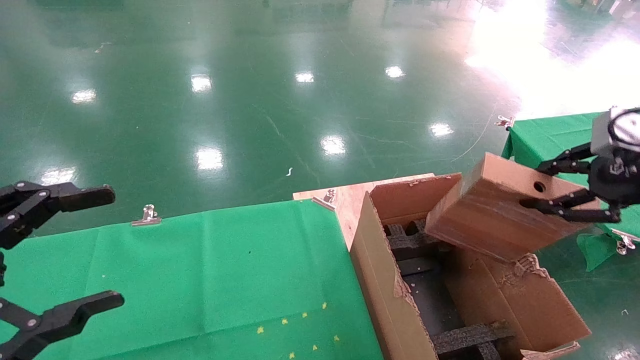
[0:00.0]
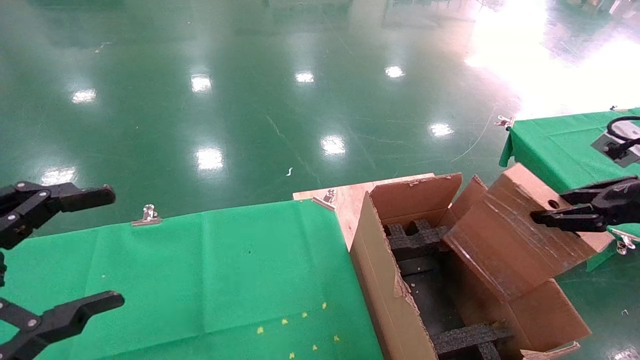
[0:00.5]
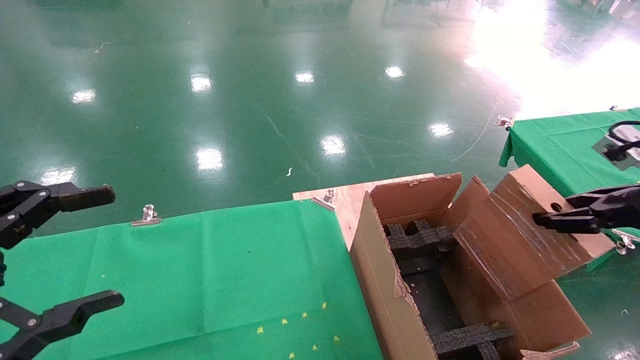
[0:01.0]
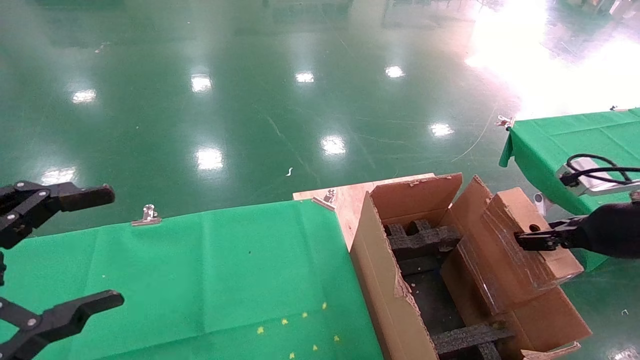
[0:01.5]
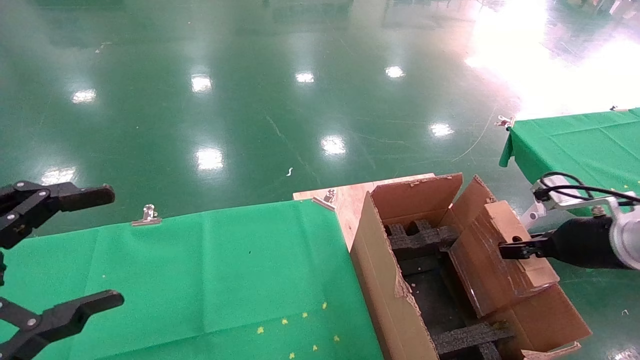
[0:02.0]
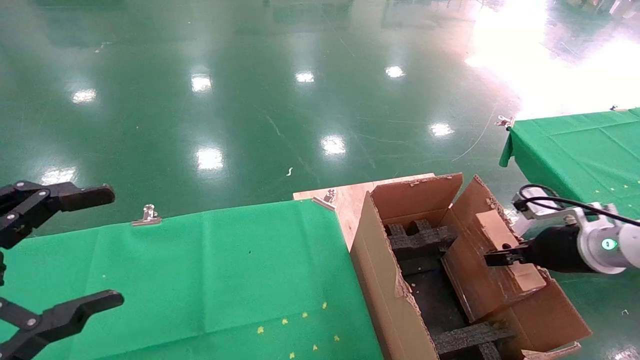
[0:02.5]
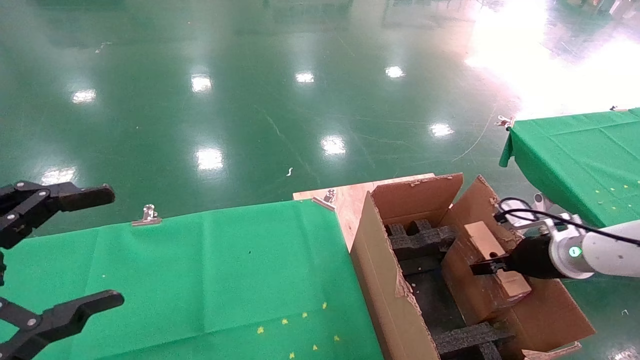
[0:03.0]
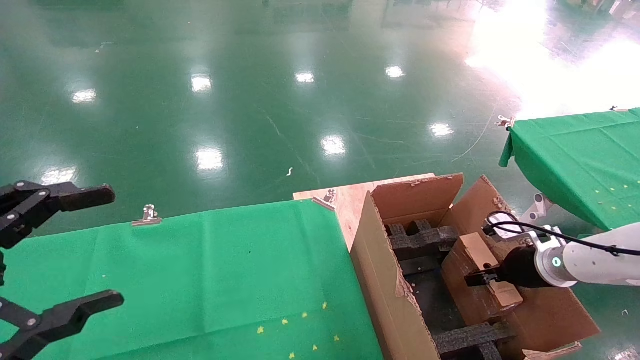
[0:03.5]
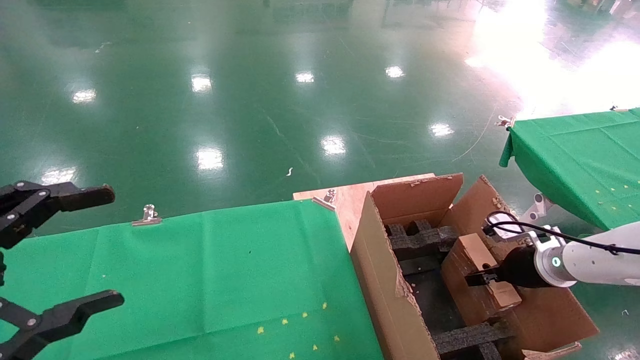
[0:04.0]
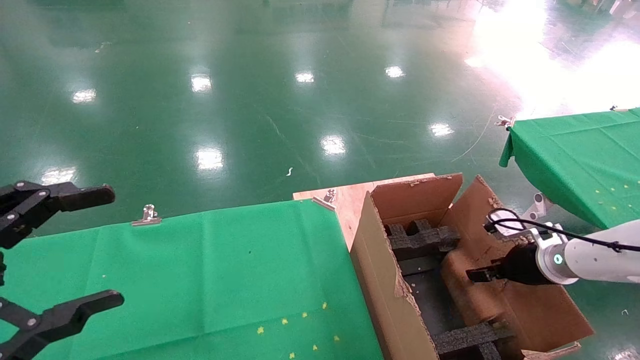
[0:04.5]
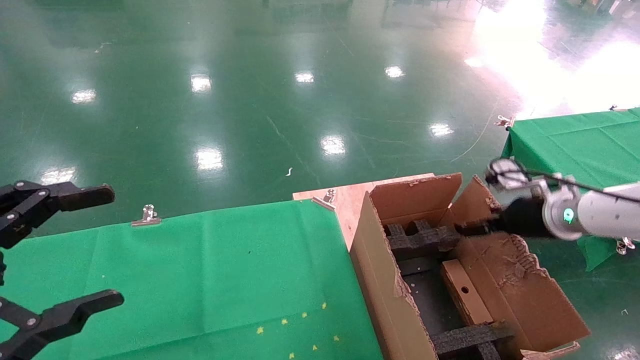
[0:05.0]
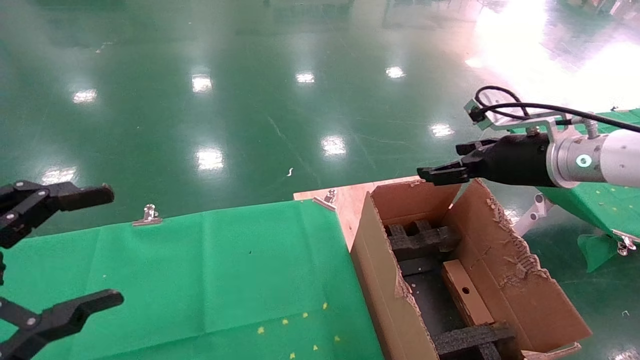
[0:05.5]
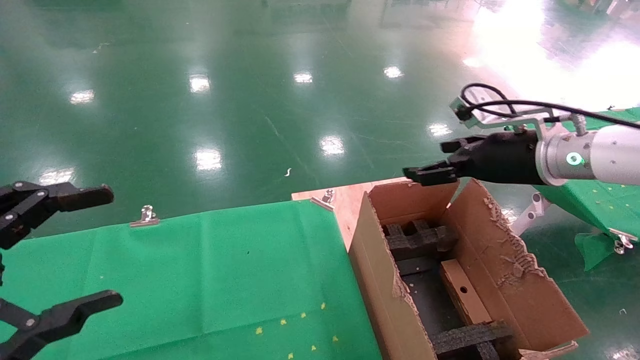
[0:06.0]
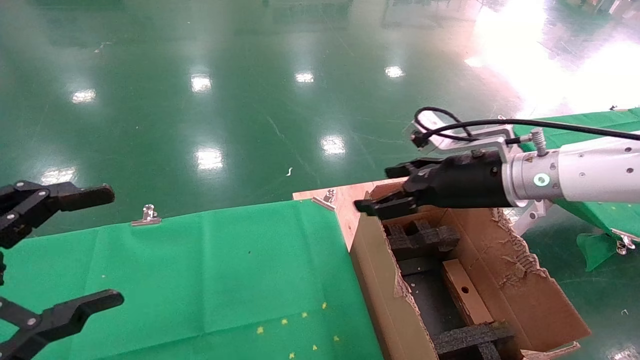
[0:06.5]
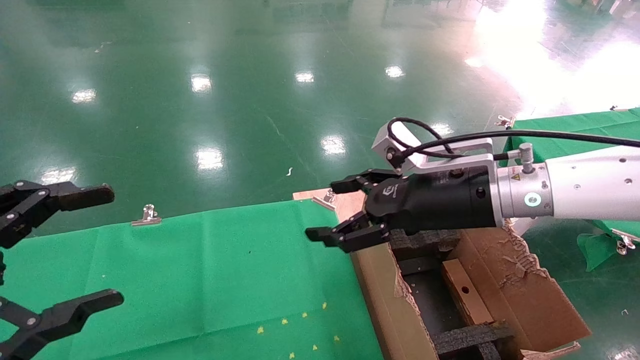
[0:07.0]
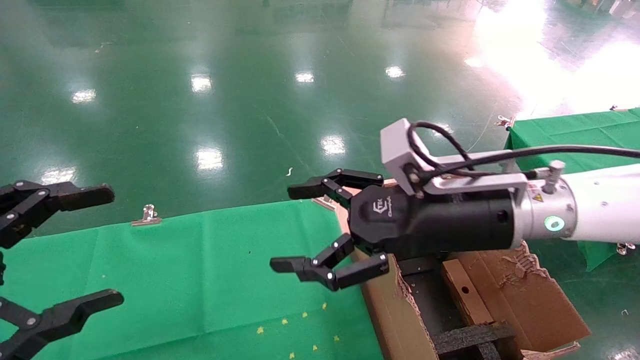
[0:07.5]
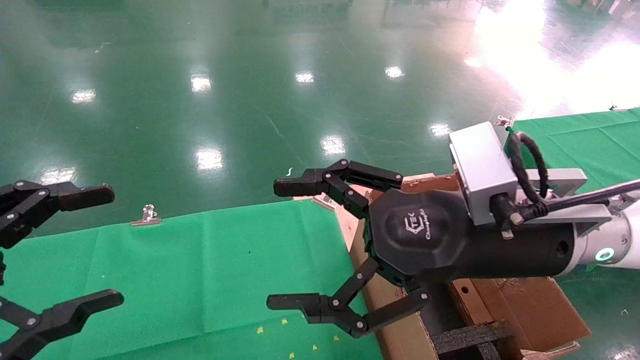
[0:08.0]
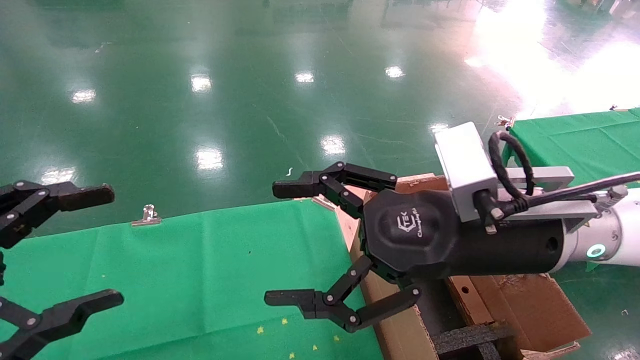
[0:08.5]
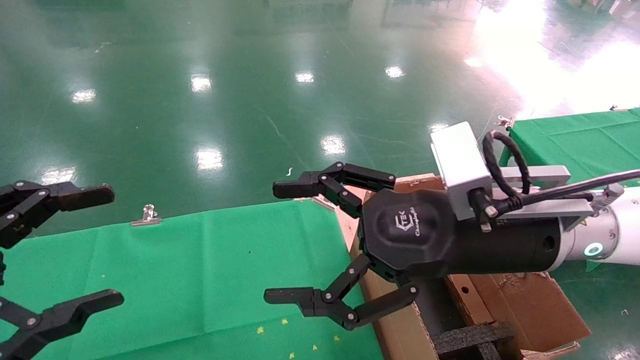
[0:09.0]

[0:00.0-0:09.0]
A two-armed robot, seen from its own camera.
Task of the whole recording: using a robotic arm to pick up a cardboard box and palace it the carton.
Step, 0:00.0 to 0:05.0: Place the mouse and the power cord paper box into the container.
0:00.0 to 0:02.0: The right gripper goes about 15 cm downward and forward.
0:02.0 to 0:04.5: The right gripper moves downward and forward, approximately 10 cm.
0:04.5 to 0:07.0: The right gripper shifts approximately 25 cm to the left and upward, and opens up.
0:07.0 to 0:09.0: The right gripper is displaced backward by roughly 10 cm.
